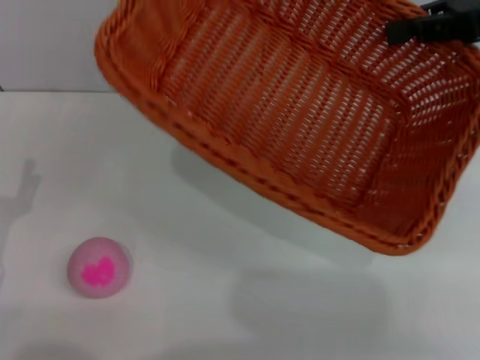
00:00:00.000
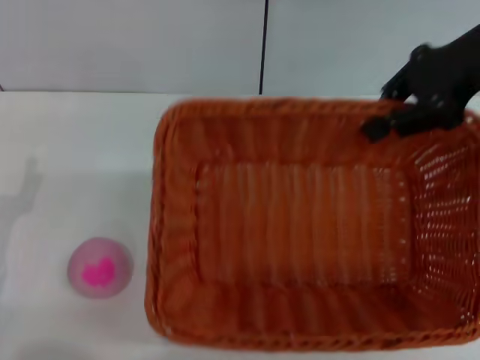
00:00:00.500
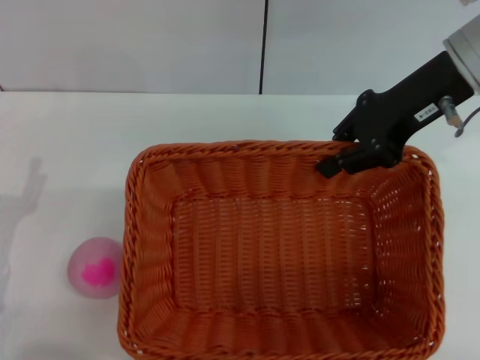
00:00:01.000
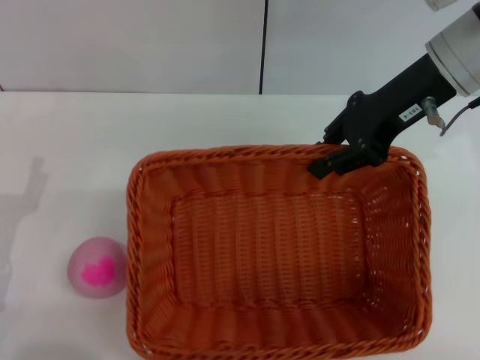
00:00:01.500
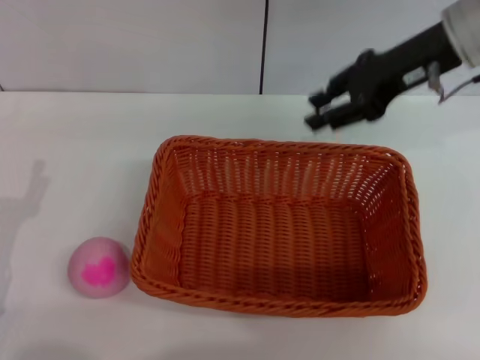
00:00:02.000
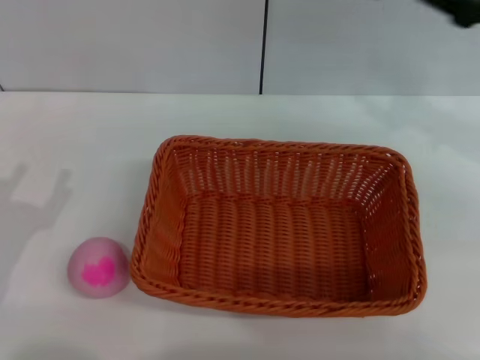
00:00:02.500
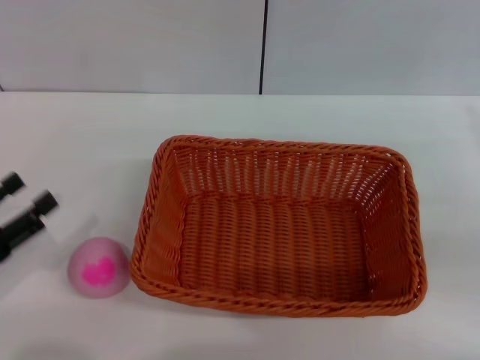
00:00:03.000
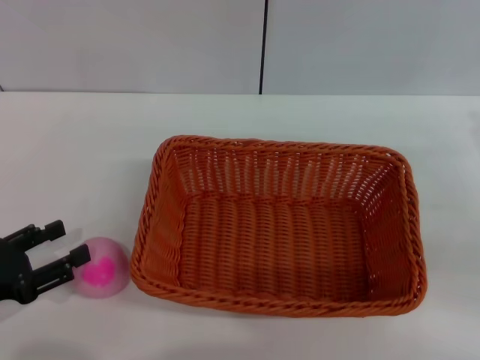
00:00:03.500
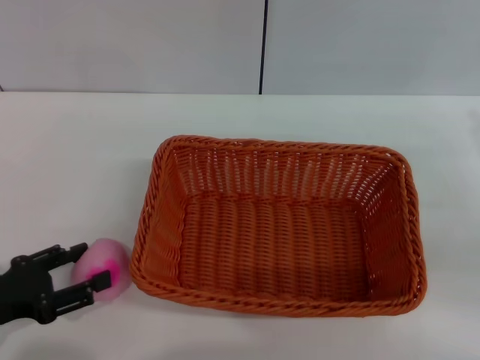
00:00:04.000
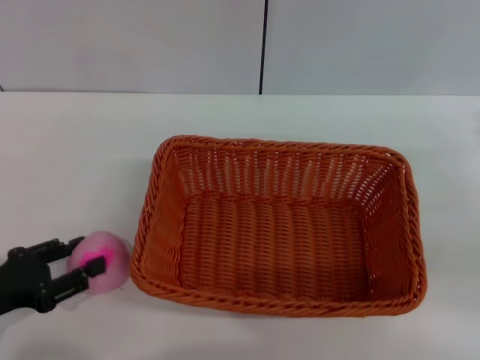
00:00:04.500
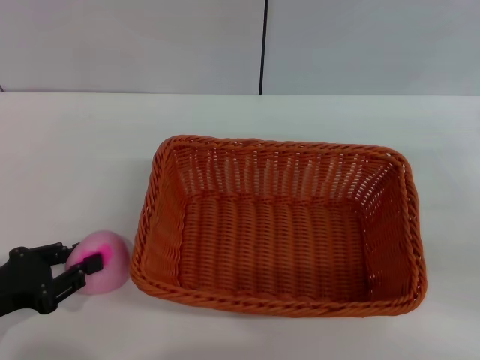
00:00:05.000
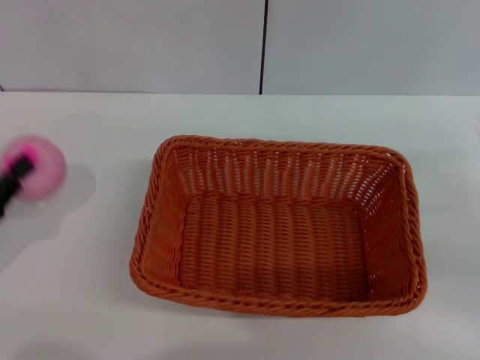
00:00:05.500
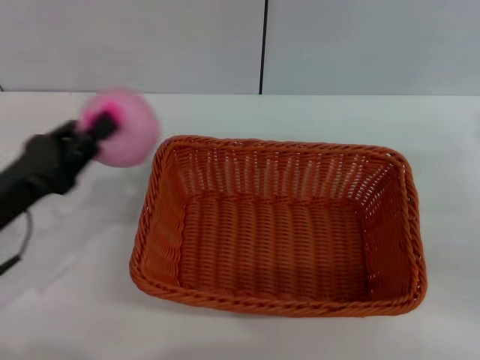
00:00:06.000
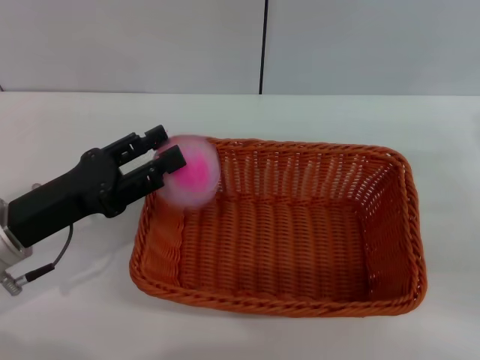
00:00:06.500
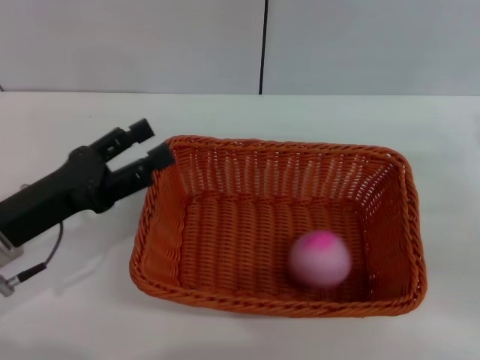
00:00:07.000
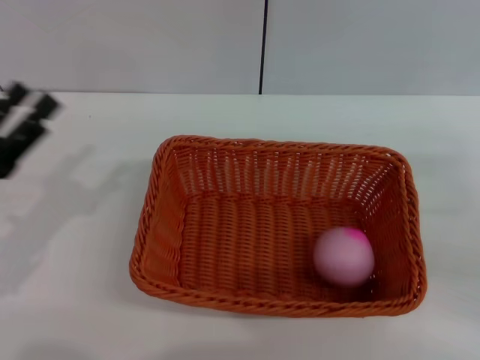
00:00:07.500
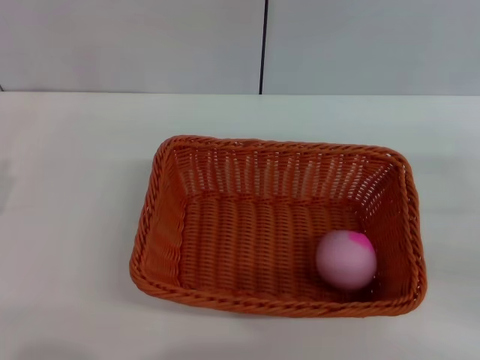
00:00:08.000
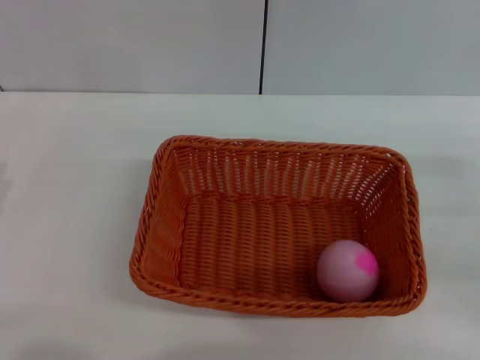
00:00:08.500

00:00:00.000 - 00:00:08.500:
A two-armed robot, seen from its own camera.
Step, 00:00:00.000 - 00:00:01.500: Place the light basket in the center of view with the right gripper.
Step, 00:00:02.000 - 00:00:05.000: Pick up the peach with the left gripper.
Step, 00:00:05.500 - 00:00:06.500: Place the peach into the basket with the left gripper.
00:00:00.000 - 00:00:02.000: The right gripper shifts roughly 10 cm to the left, and opens its fingers.
00:00:02.000 - 00:00:04.000: The right gripper travels to the right, backward and downward by approximately 25 cm.
00:00:04.000 - 00:00:06.500: The left gripper travels to the right and forward by about 10 cm, and closes up.
00:00:06.500 - 00:00:08.500: The left gripper shifts some 10 cm to the left and backward, and opens.

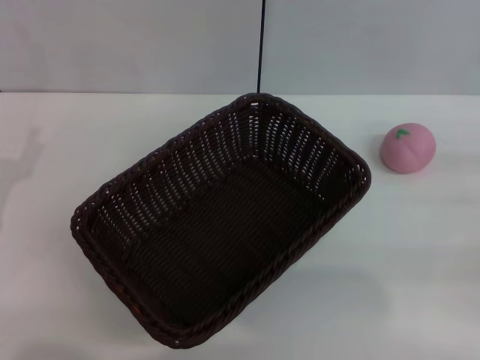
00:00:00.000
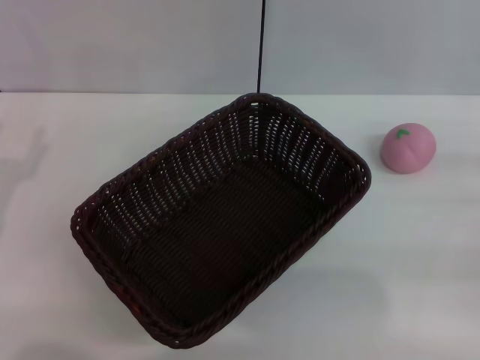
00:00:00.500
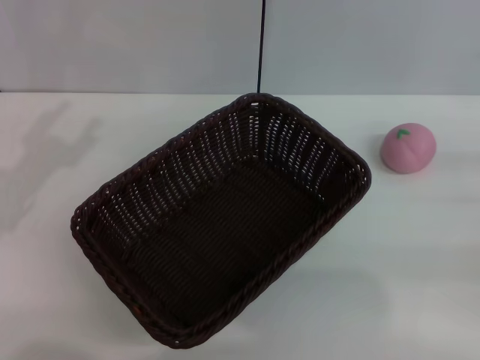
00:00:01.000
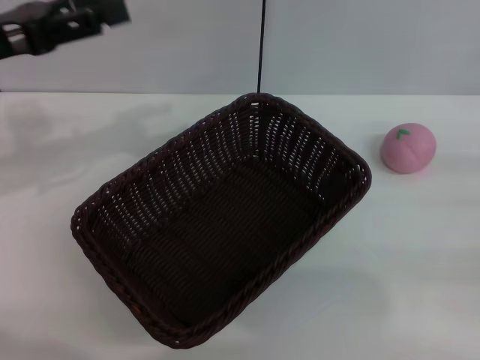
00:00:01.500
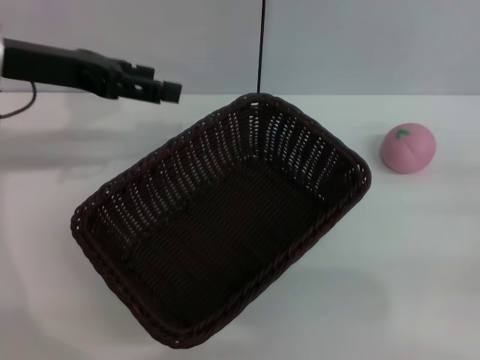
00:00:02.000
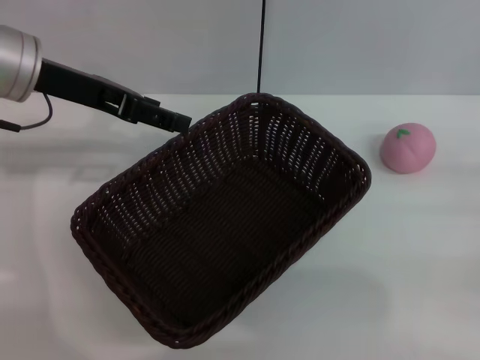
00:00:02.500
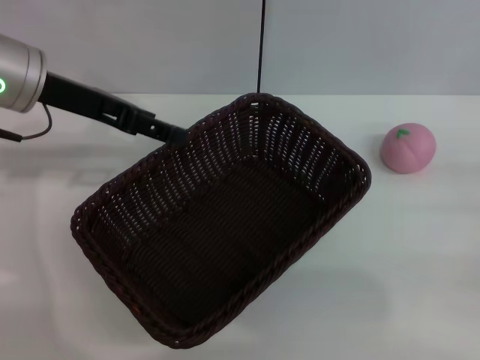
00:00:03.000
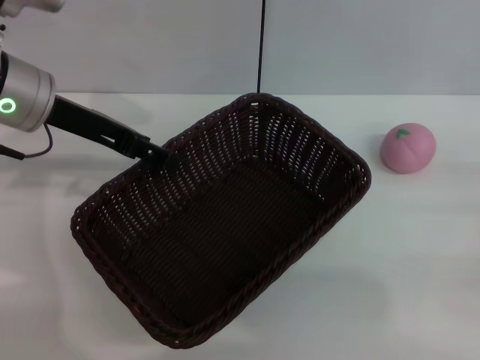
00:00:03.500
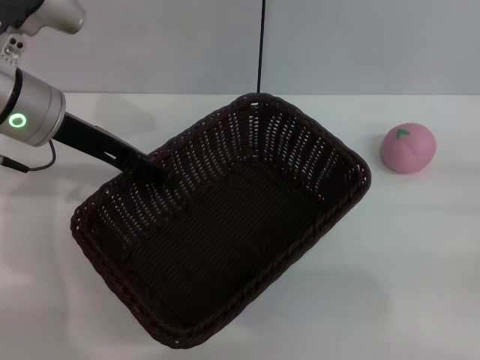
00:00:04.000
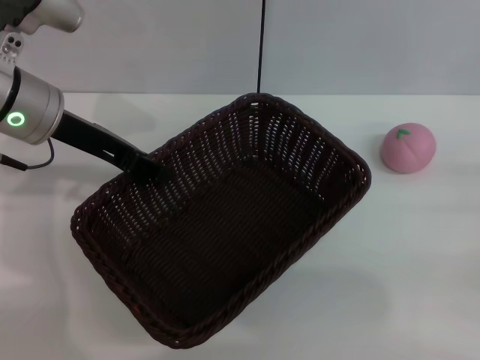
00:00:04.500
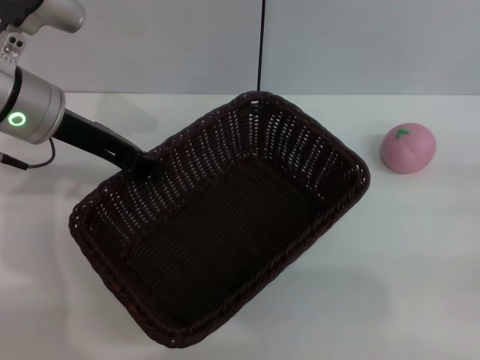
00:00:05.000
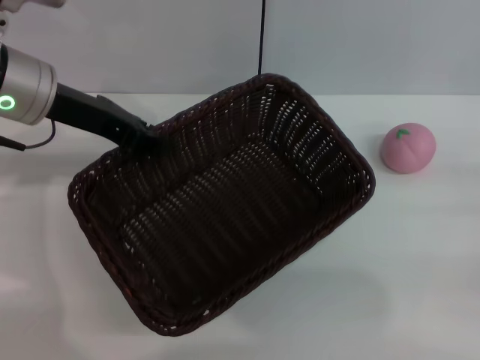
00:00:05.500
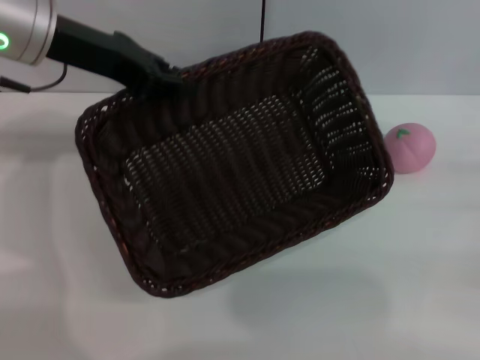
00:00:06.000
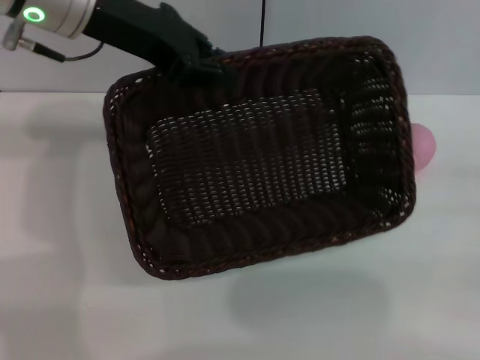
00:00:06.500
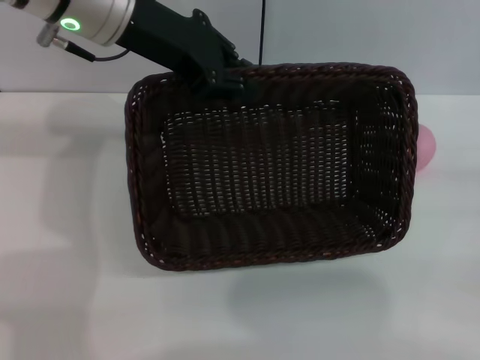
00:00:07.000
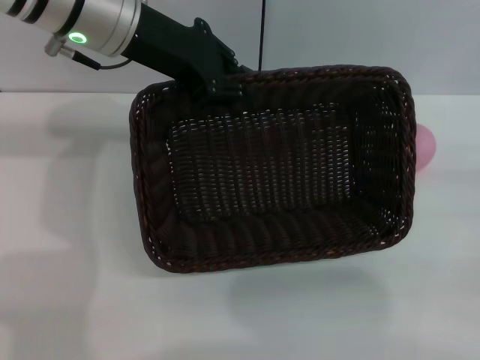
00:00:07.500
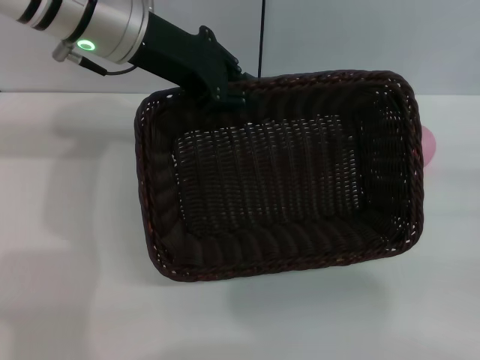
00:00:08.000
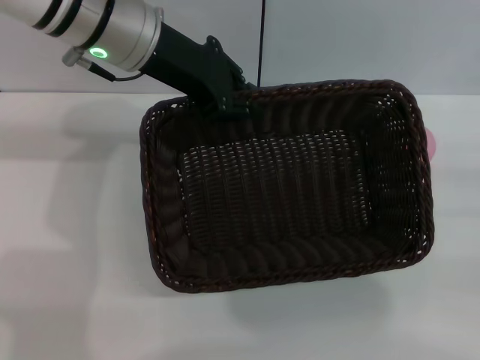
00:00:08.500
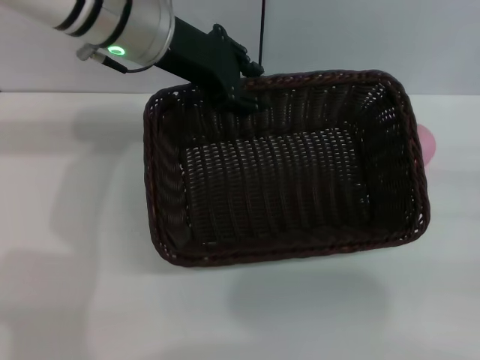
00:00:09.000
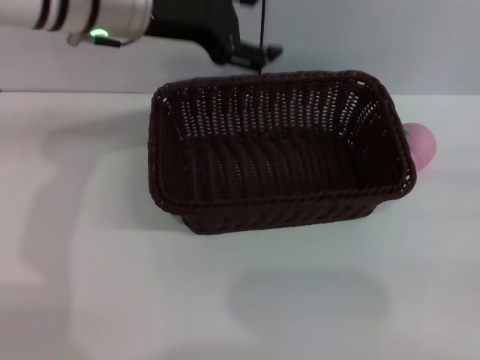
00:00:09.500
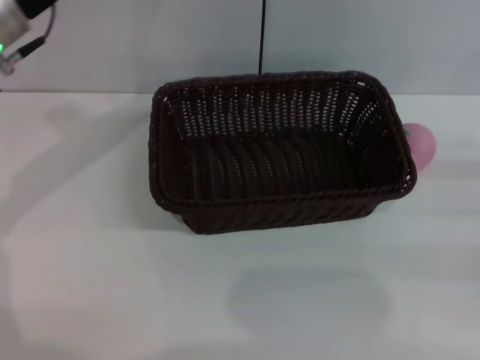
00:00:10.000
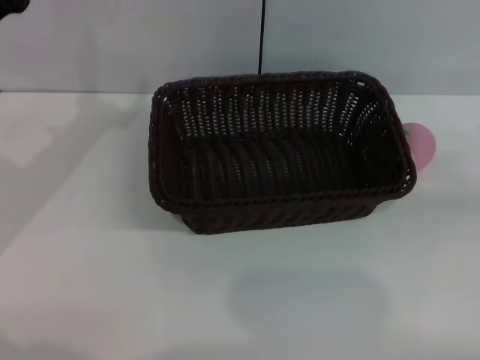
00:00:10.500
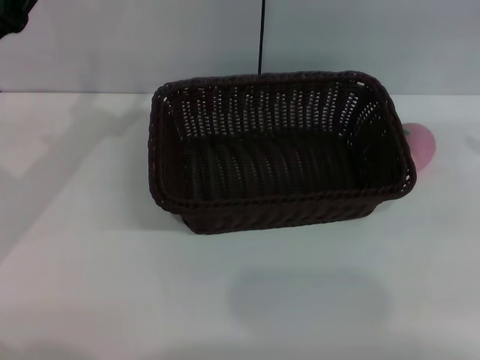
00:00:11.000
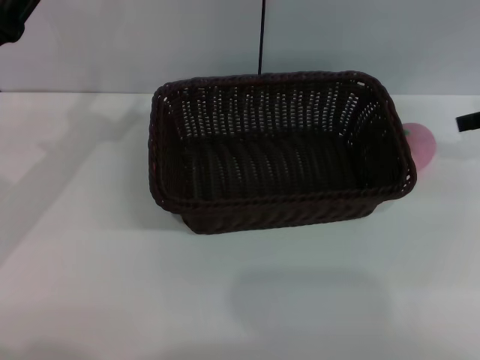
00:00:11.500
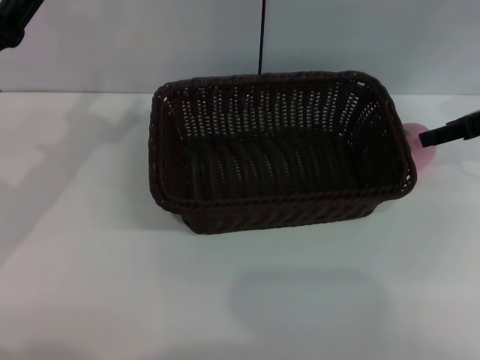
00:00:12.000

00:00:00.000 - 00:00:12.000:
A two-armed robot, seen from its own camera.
Step, 00:00:00.000 - 00:00:05.000: Pick up the dark basket with the left gripper.
Step, 00:00:05.500 - 00:00:09.000: Place the dark basket in the center of view with the right gripper.
00:00:00.000 - 00:00:02.000: The left gripper moves forward, upward and to the right, some 20 cm, and opens.
00:00:02.000 - 00:00:04.000: The left gripper moves some 5 cm.
00:00:04.000 - 00:00:06.000: The left gripper goes about 5 cm upward, and closes up.
00:00:06.000 - 00:00:08.000: The left gripper moves to the right, some 5 cm.
00:00:08.000 - 00:00:10.000: The left gripper goes some 10 cm to the left, and opens up.
00:00:10.000 - 00:00:12.000: The left gripper heads downward, backward and to the left, covering approximately 10 cm; the right gripper moves forward, upward and to the left, about 20 cm.

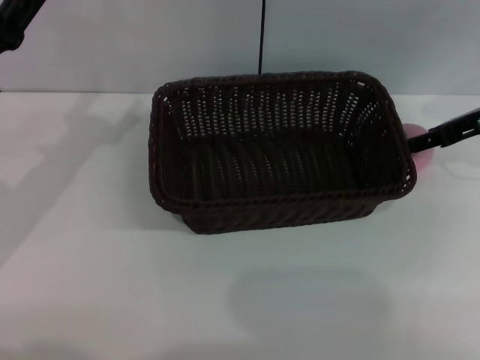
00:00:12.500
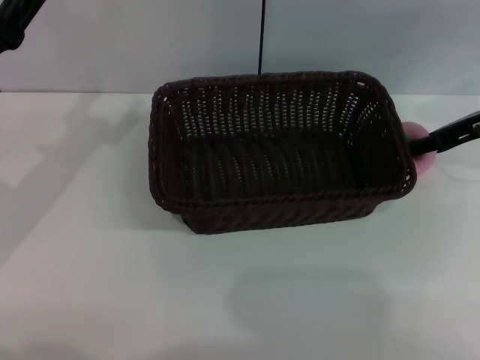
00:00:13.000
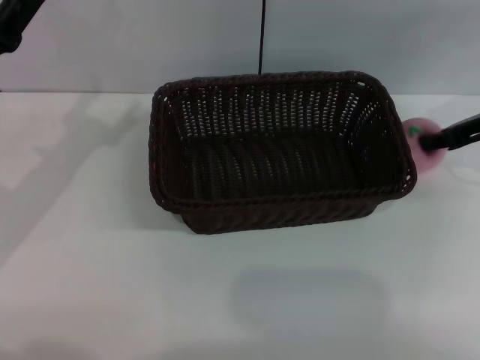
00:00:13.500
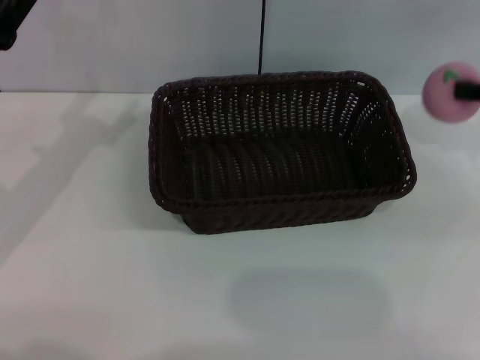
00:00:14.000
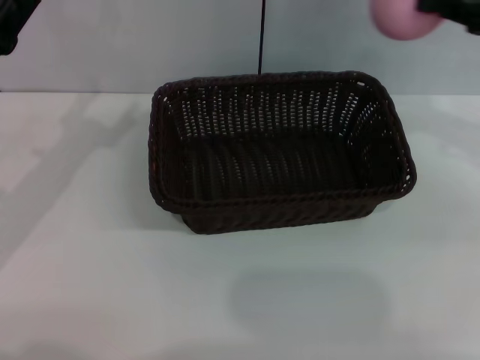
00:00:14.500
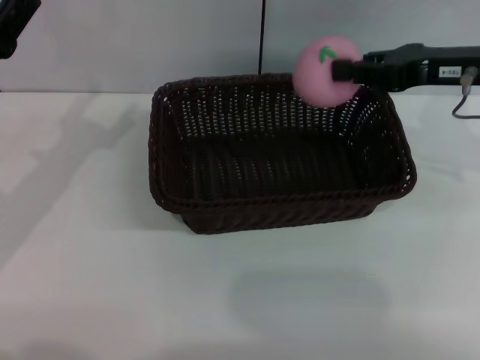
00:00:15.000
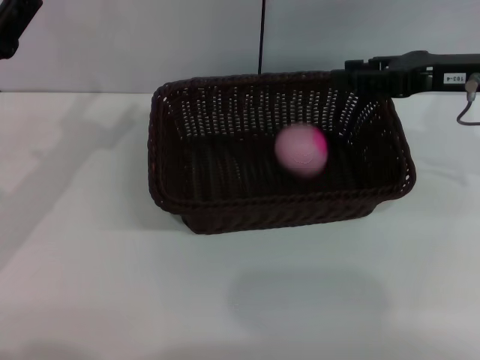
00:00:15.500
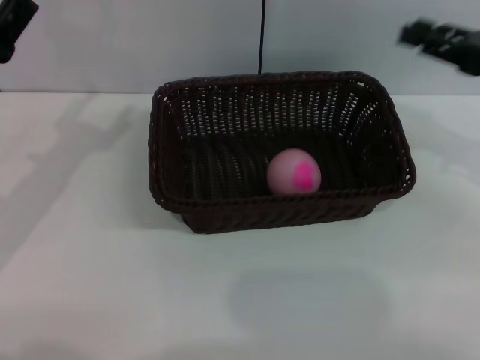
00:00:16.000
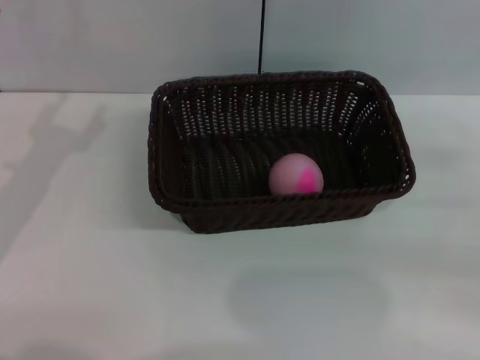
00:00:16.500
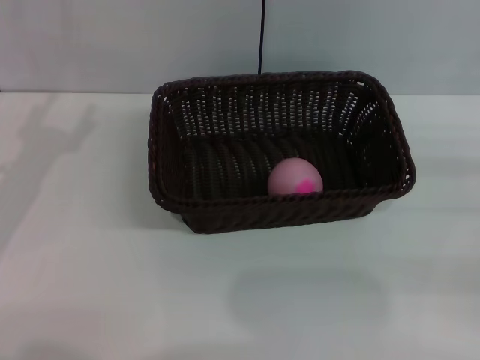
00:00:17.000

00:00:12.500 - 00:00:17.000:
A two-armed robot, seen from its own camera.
00:00:12.500 - 00:00:14.500: The right gripper shifts roughly 5 cm upward, and closes up.
00:00:14.500 - 00:00:17.000: The right gripper travels downward, backward and to the right by some 20 cm, and opens its fingers.
